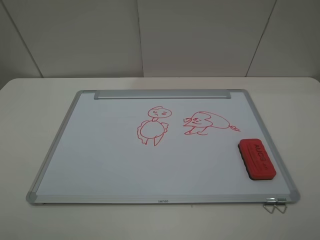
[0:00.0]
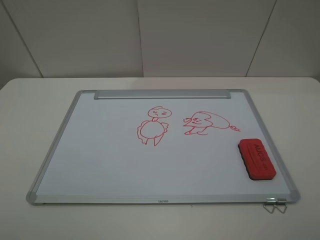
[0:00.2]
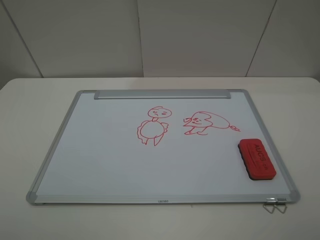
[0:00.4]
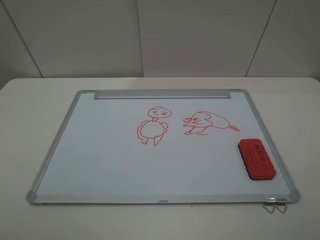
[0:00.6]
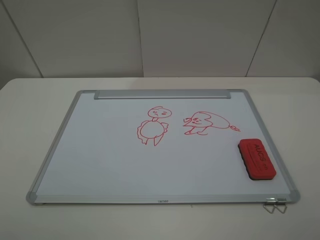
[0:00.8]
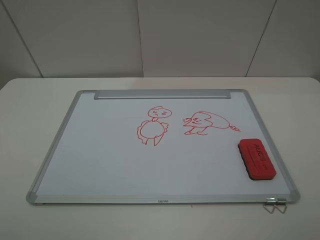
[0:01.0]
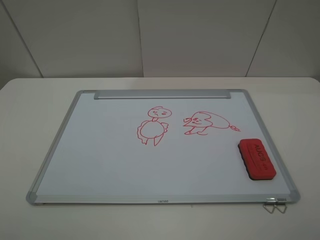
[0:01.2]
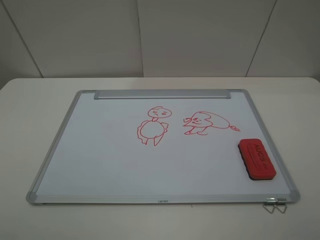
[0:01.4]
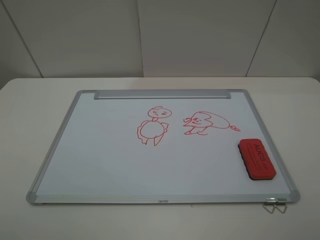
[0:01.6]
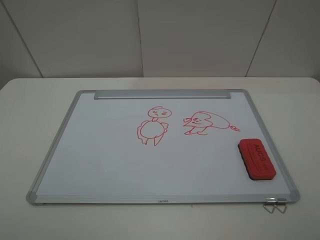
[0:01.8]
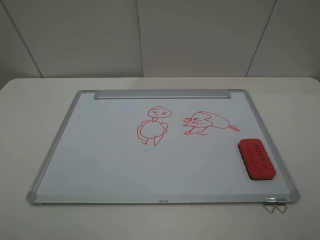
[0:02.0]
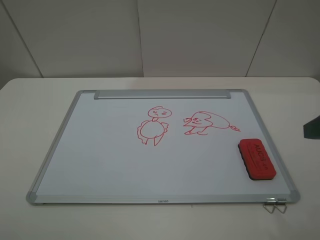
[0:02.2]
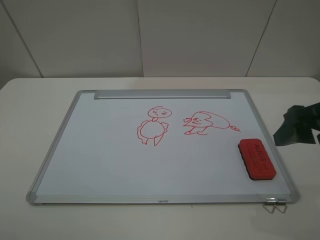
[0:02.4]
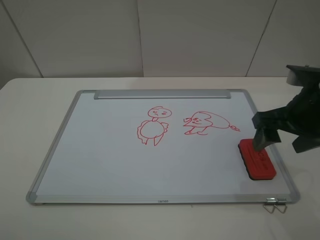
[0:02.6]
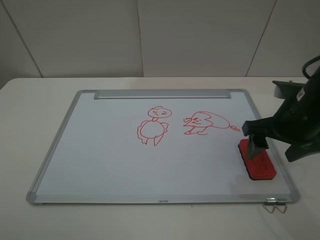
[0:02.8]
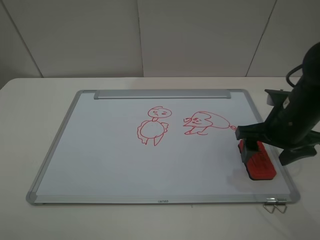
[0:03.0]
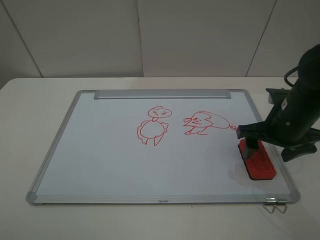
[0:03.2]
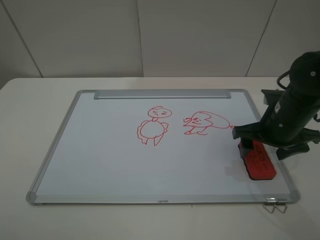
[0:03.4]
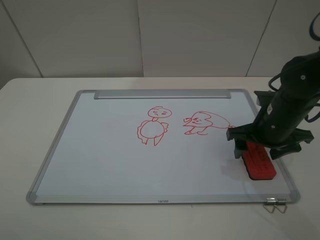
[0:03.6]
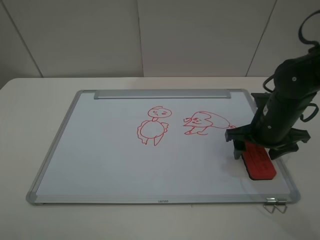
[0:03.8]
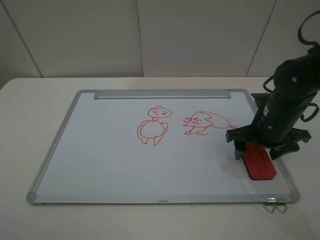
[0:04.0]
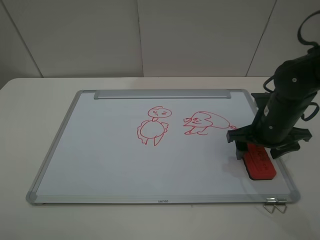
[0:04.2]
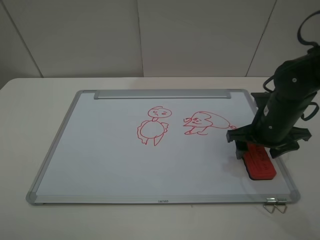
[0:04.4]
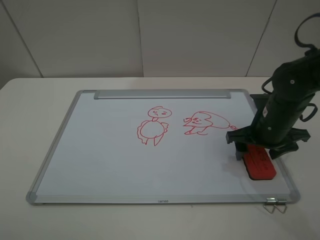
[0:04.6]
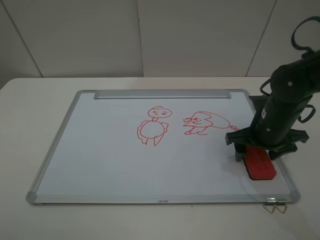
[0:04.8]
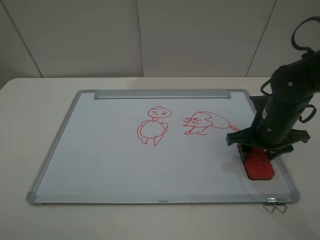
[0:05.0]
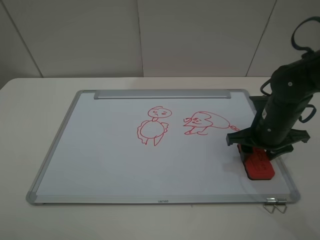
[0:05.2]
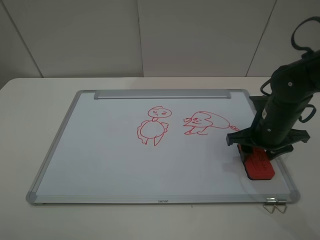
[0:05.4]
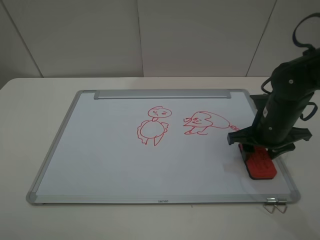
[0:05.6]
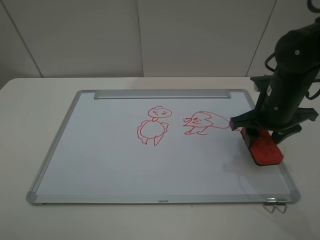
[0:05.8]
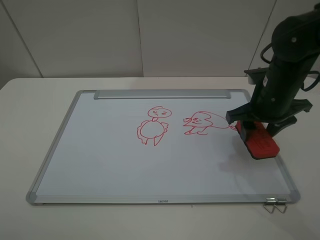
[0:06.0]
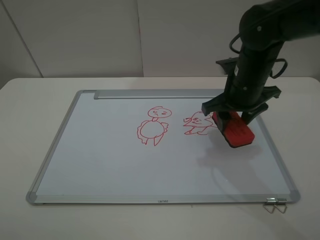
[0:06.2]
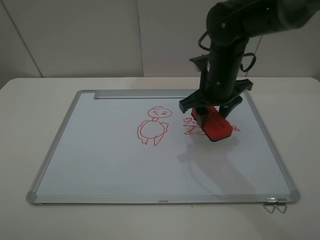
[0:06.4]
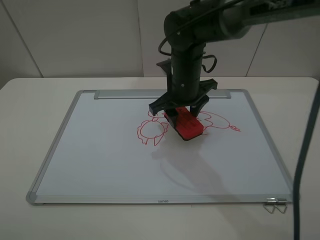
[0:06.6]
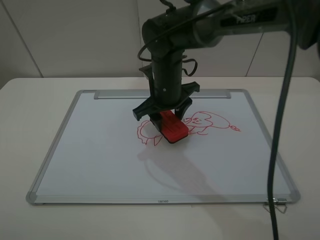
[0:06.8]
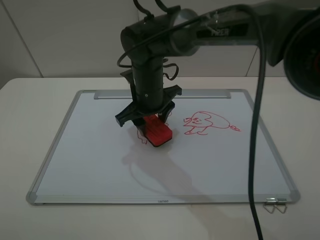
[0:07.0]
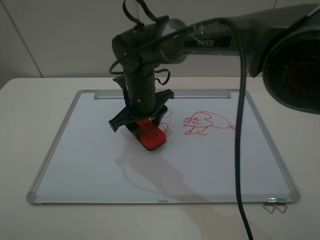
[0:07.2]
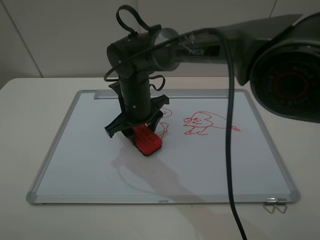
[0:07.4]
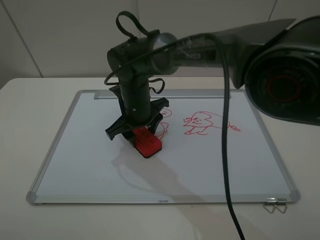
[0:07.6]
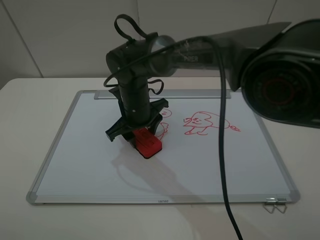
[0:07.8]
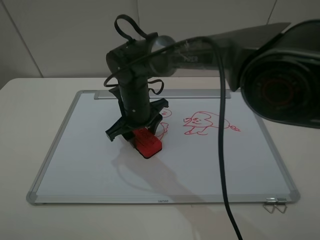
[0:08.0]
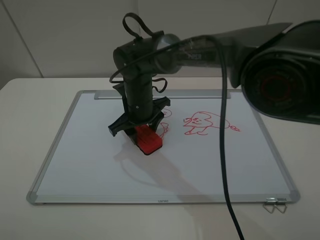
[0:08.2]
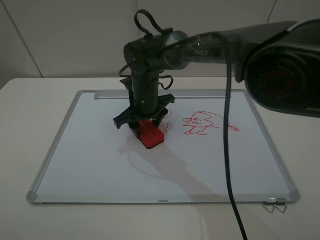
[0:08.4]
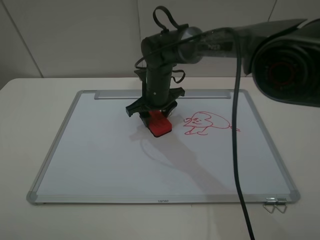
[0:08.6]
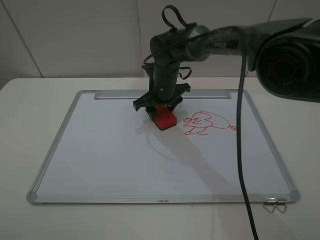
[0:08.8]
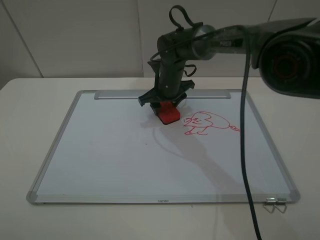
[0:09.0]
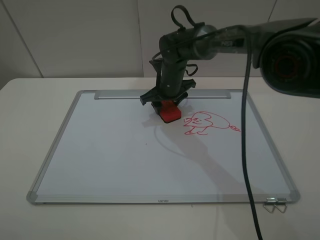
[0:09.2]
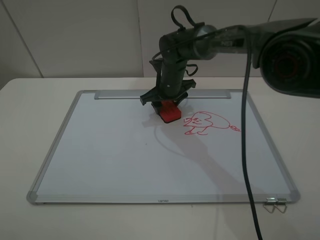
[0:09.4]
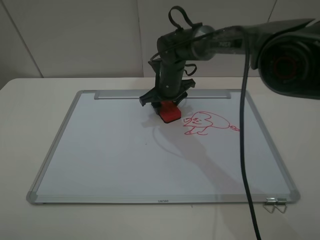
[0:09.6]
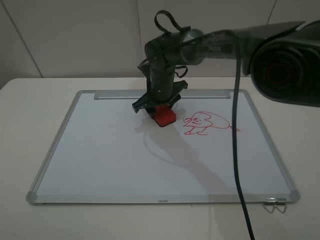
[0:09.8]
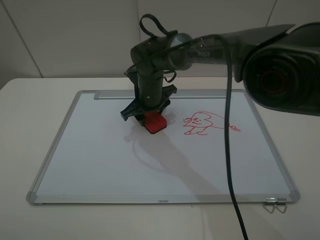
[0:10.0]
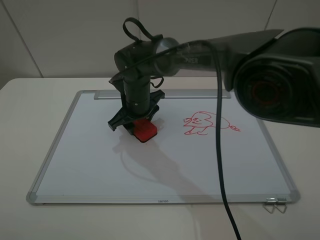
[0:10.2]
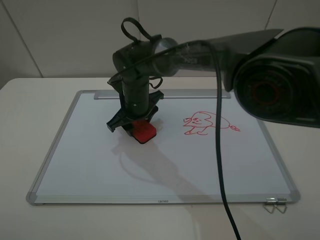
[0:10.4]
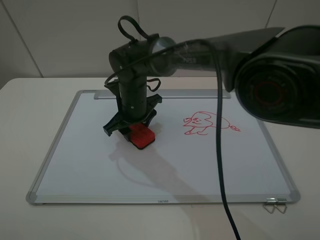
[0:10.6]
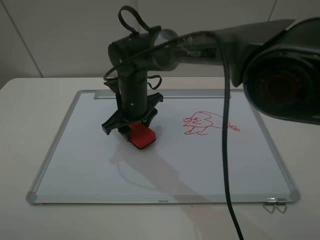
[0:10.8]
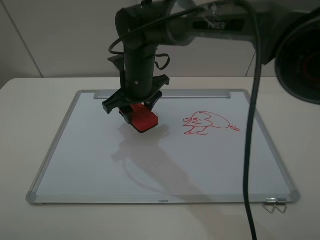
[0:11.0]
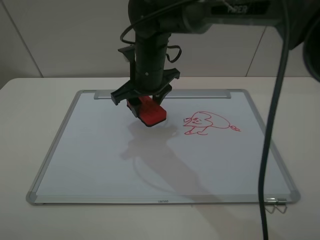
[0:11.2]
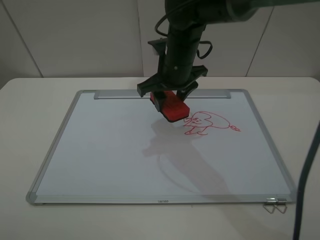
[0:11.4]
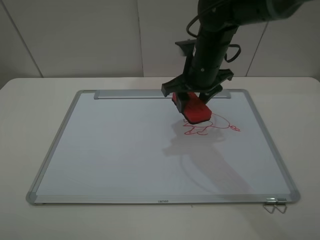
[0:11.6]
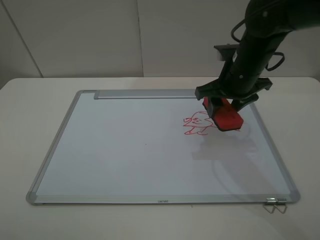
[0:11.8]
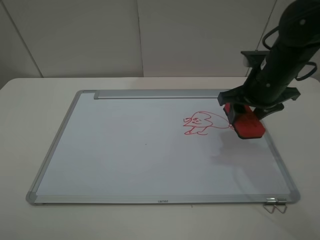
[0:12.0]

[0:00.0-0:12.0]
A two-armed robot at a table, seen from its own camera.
Step, 0:00.0 to 0:05.0: Grasp the eraser with the right gripper.
Step, 0:05.2 to 0:10.8: Grasp the eraser and wipe the blackboard with the right gripper.
0:00.0 to 0:01.6: Both grippers stay put.
0:01.6 to 0:03.0: The right gripper shifts some 25 cm forward and downward.
0:03.0 to 0:04.4: There are only small adjustments of the grippers.
0:04.4 to 0:06.0: The right gripper heads upward, covering approximately 5 cm, and closes.
0:06.0 to 0:07.6: The right gripper is displaced to the left by some 25 cm.
0:07.6 to 0:09.0: The right gripper goes some 15 cm forward and to the right.
0:09.0 to 0:10.4: The right gripper goes approximately 10 cm to the left and backward.
0:10.4 to 0:12.0: The right gripper heads to the right, covering roughly 25 cm.

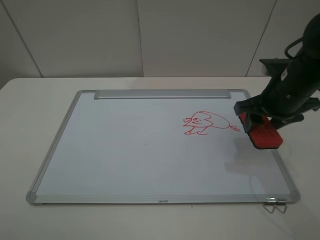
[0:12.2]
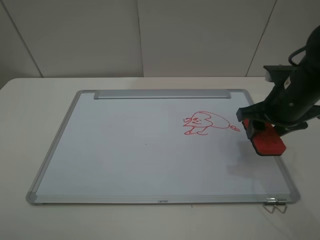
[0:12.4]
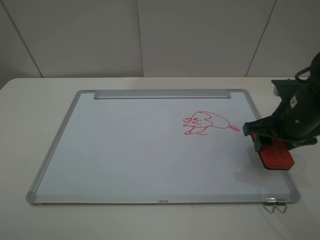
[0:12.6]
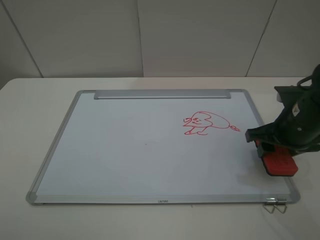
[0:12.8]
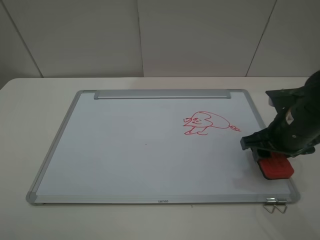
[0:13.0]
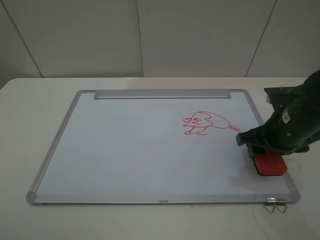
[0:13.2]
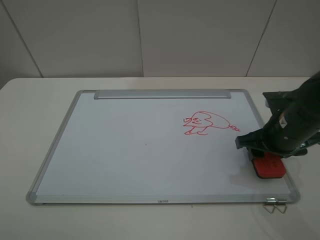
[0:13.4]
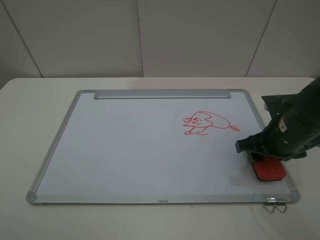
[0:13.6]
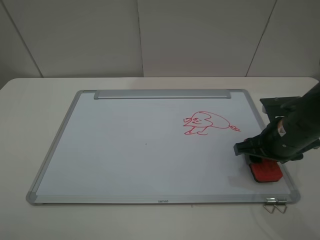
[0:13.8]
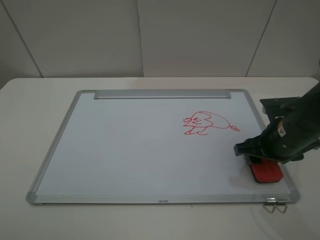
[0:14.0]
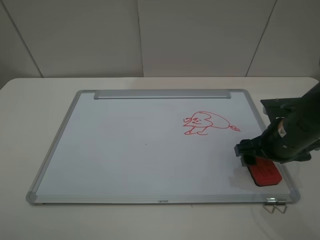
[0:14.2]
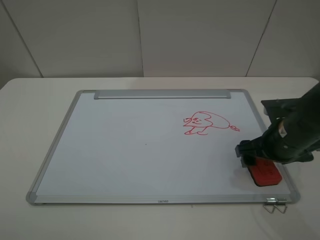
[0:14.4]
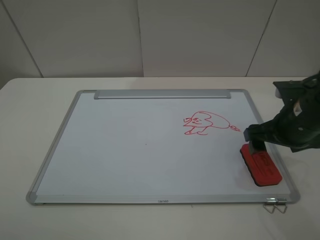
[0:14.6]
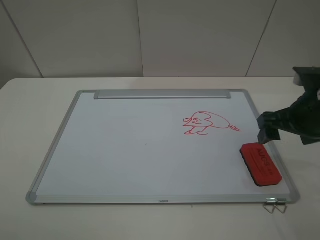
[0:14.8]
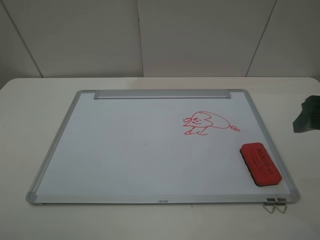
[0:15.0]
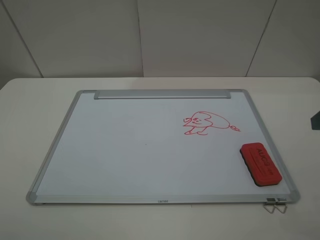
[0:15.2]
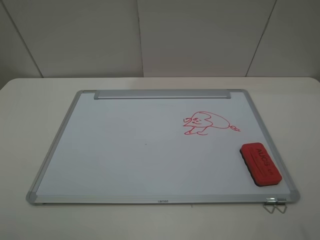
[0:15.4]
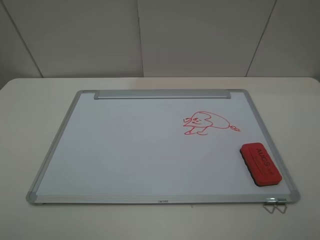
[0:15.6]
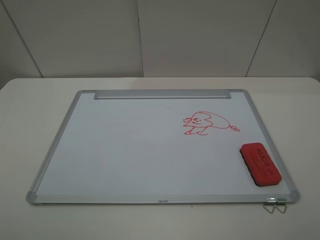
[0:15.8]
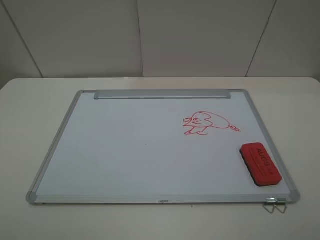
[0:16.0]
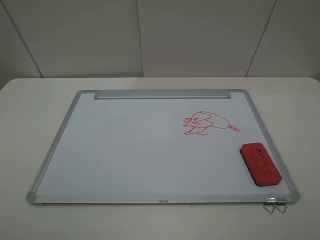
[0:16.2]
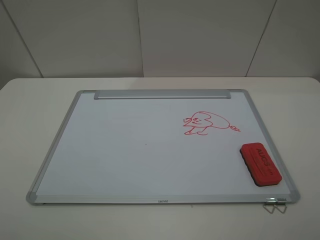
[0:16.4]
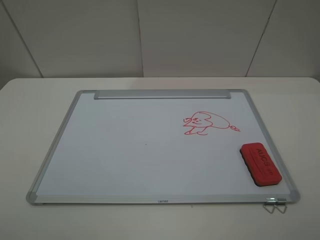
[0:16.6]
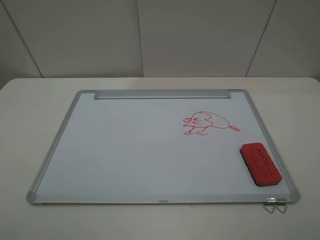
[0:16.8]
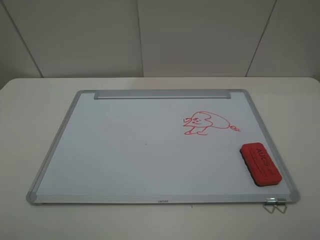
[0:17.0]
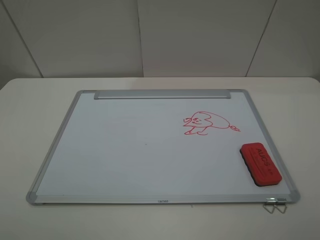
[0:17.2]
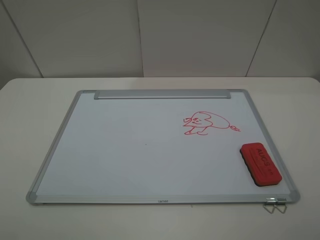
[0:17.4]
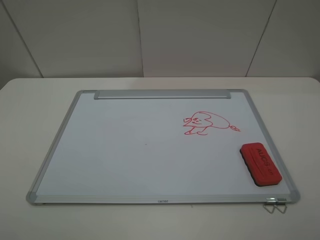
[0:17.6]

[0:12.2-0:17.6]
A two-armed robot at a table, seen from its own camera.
Step, 0:12.2 to 0:14.4: Place the eraser with the right gripper.
0:12.2 to 0:13.6: The right gripper travels downward by some 5 cm.
0:13.6 to 0:15.0: The right gripper travels upward and to the right by roughly 15 cm, and opens its fingers.
0:15.0 to 0:16.2: The right gripper heads backward, covering approximately 20 cm.
0:16.2 to 0:17.6: The two grippers keep their place.

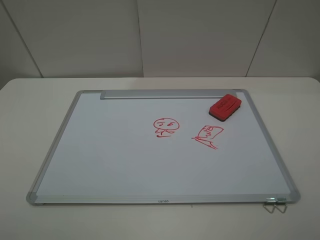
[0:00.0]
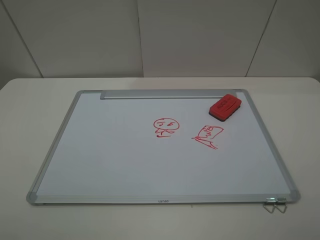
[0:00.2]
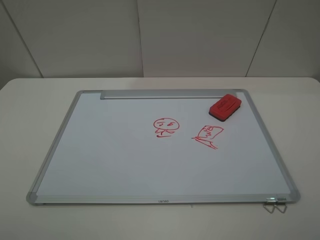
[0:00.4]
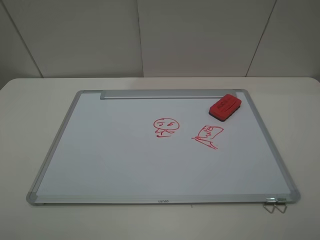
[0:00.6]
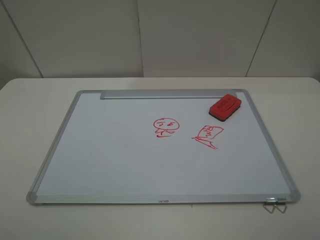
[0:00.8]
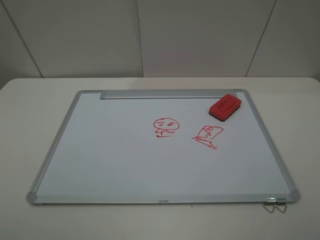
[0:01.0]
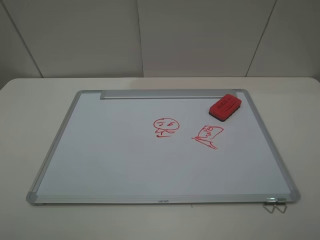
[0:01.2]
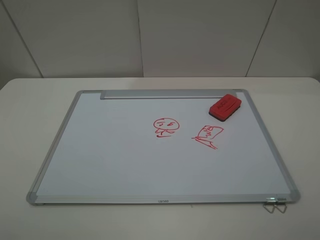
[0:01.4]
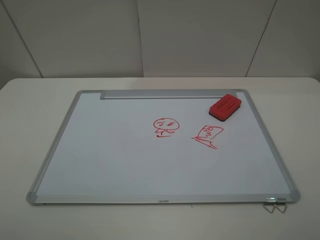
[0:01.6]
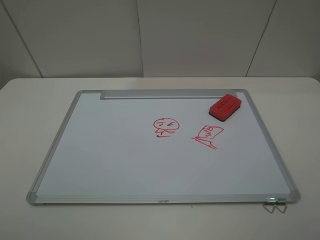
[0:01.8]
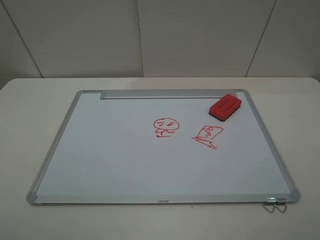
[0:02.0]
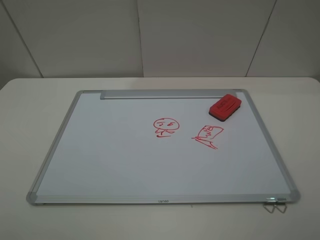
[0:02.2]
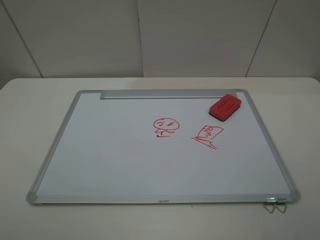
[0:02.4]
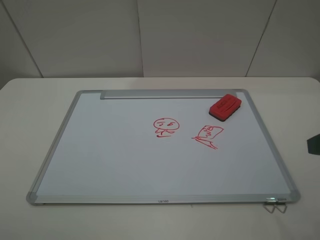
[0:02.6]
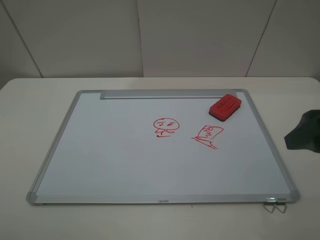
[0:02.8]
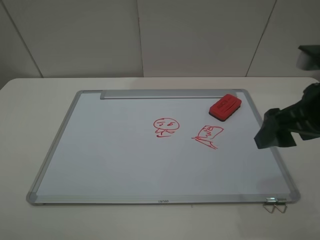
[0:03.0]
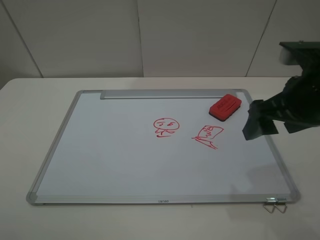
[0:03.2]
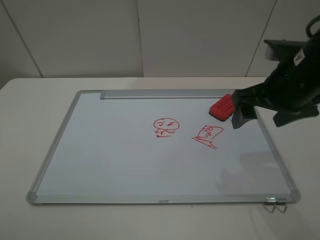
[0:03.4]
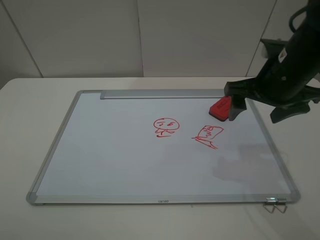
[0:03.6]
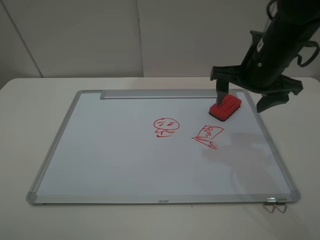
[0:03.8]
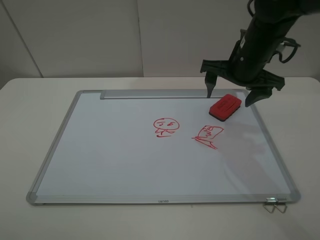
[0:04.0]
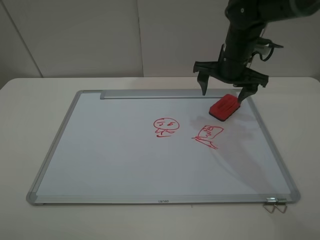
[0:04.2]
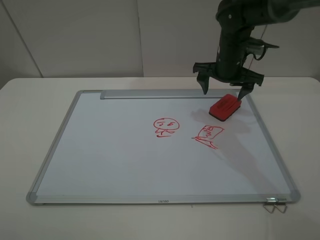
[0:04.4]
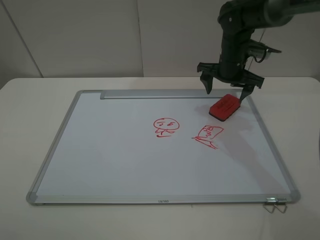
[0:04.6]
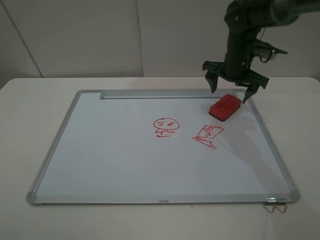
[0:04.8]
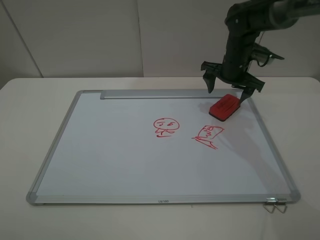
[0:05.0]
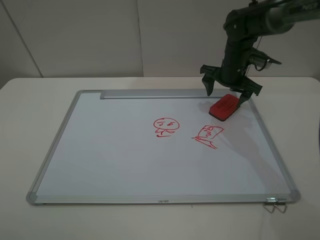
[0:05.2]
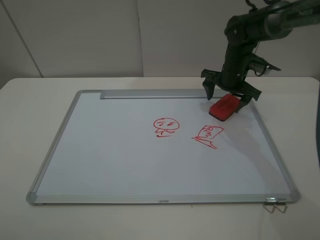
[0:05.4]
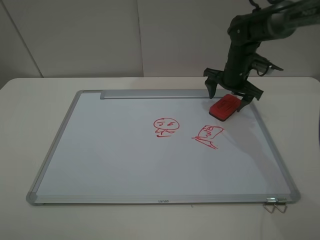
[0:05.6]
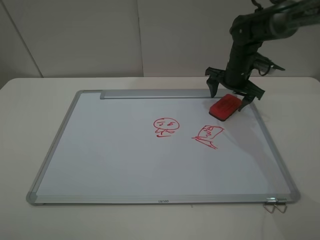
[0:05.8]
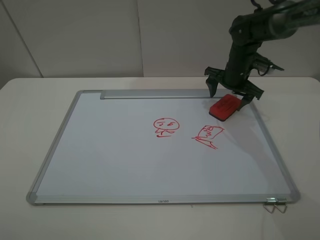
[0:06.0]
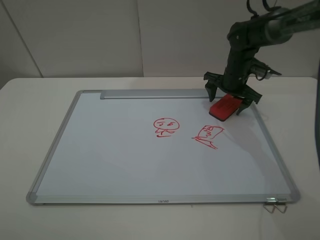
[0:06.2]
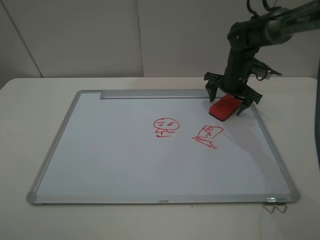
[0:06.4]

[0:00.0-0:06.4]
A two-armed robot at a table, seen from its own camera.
0:00.0 to 0:01.6: Both grippers stay put.
0:01.6 to 0:03.2: The right gripper shifts some 20 cm forward.
0:03.2 to 0:04.8: The right gripper moves forward, roughly 20 cm.
0:04.8 to 0:06.4: The right gripper shifts by some 5 cm.
